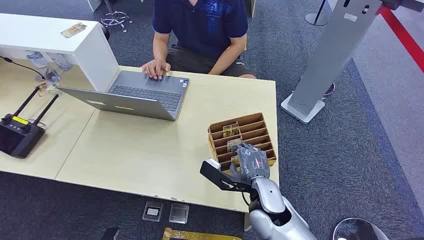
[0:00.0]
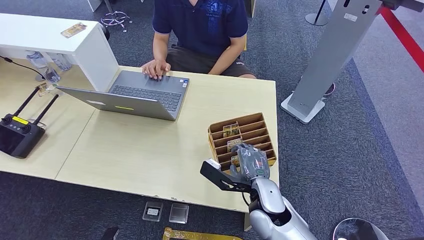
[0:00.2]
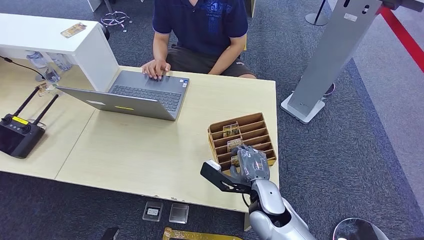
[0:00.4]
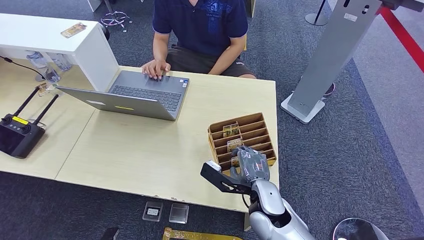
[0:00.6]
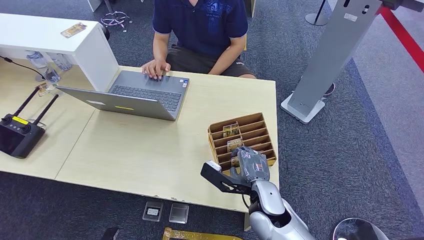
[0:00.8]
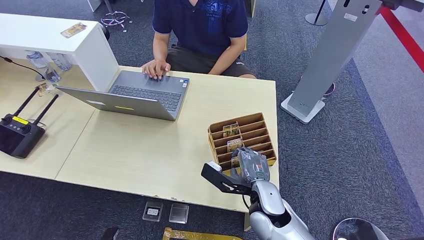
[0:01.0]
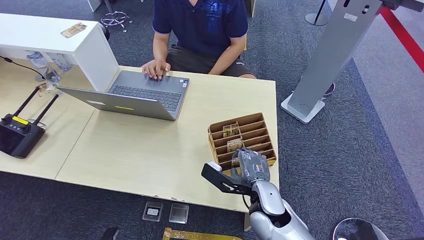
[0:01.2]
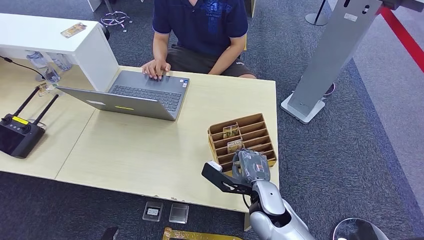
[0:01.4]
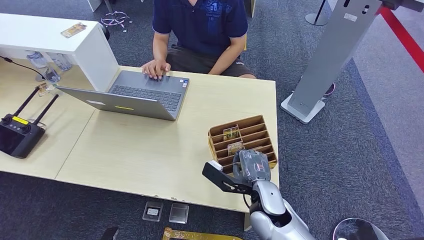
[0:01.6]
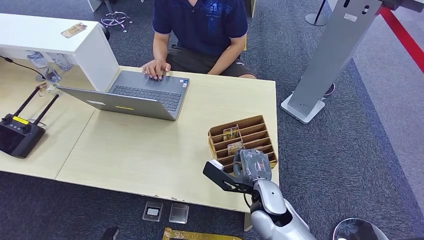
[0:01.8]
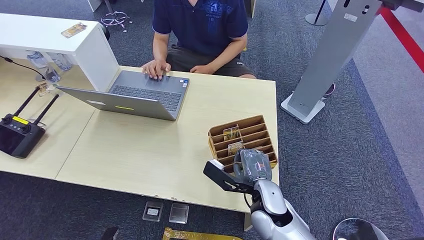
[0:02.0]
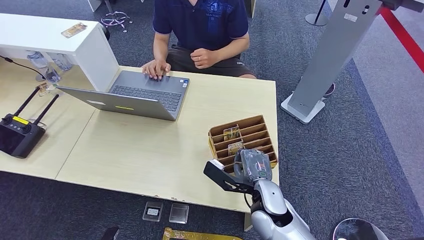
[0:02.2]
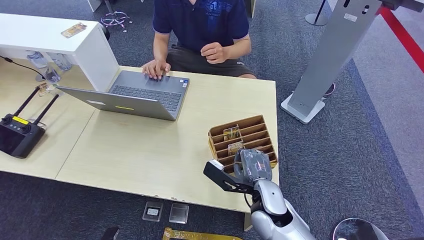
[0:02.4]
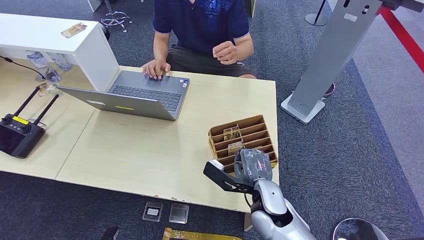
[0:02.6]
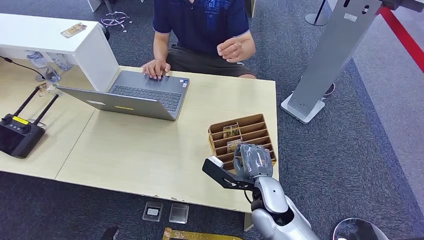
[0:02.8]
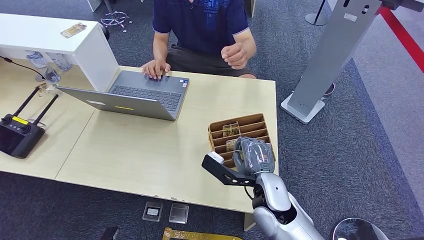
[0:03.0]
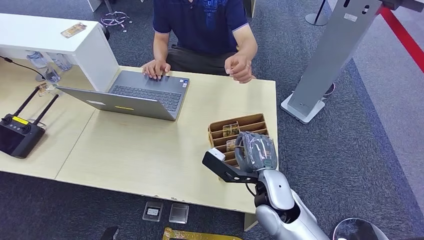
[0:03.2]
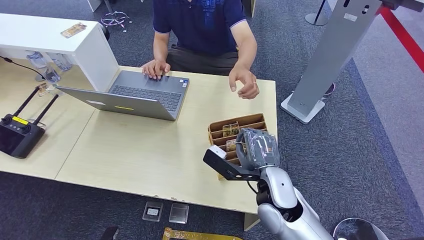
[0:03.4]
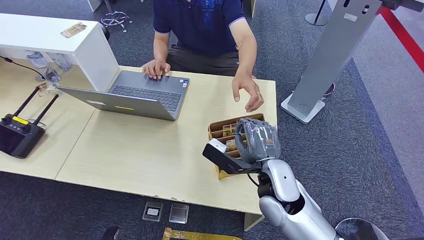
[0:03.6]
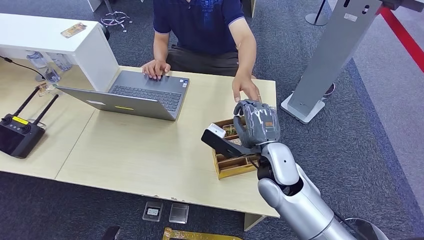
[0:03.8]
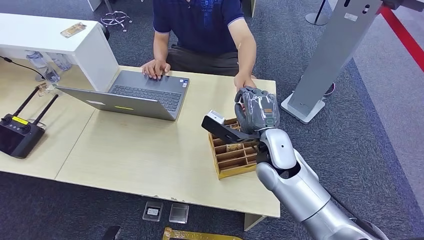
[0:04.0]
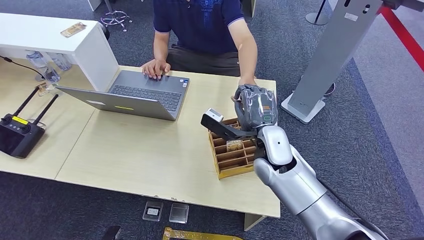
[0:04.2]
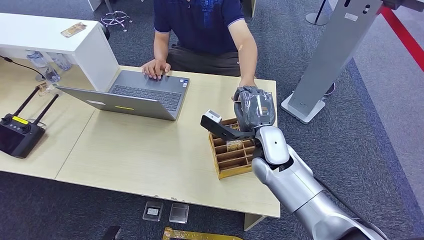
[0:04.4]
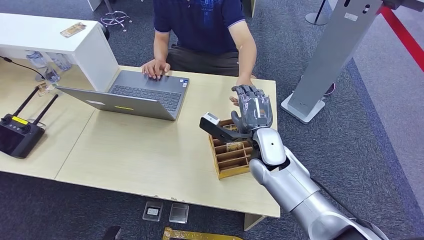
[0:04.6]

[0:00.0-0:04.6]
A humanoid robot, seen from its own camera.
Step, 0:00.0 to 0:02.8: Pick up the room card from the card holder.
Step, 0:03.2 to 0:04.6: Hand the room card to the target.
0:01.6 to 0:03.0: There are only small adjustments of the hands.
0:03.0 to 0:04.6: The right hand moves forward, about 10 cm.
